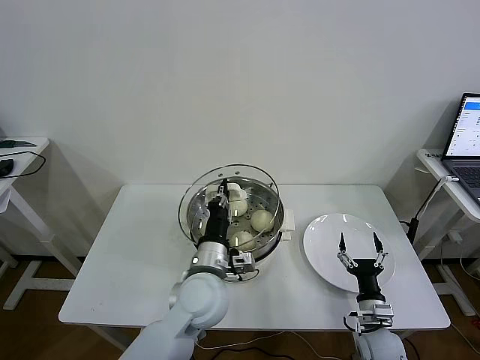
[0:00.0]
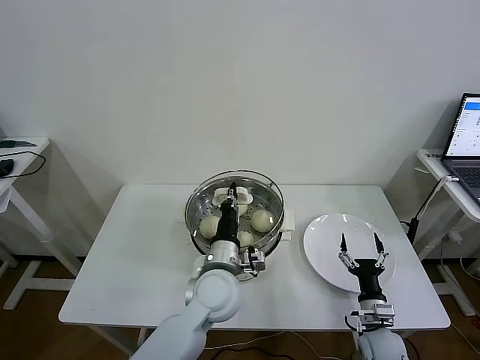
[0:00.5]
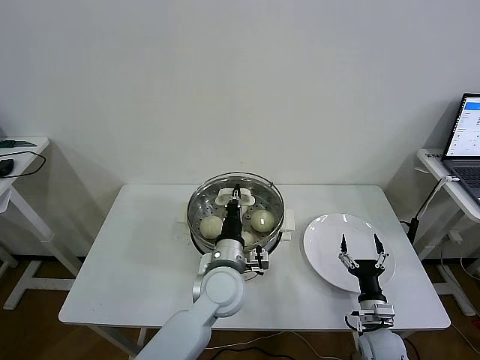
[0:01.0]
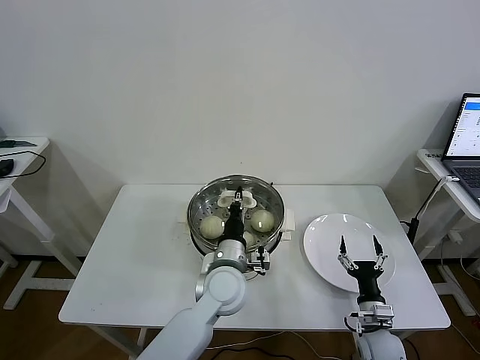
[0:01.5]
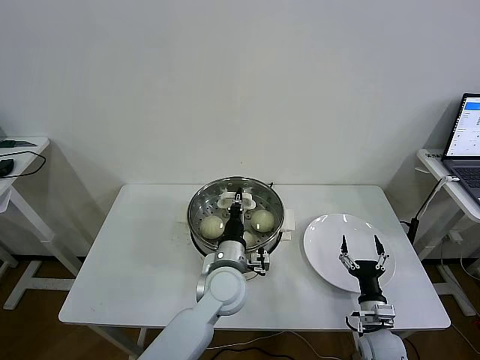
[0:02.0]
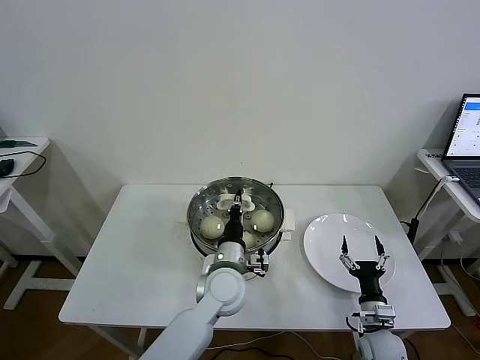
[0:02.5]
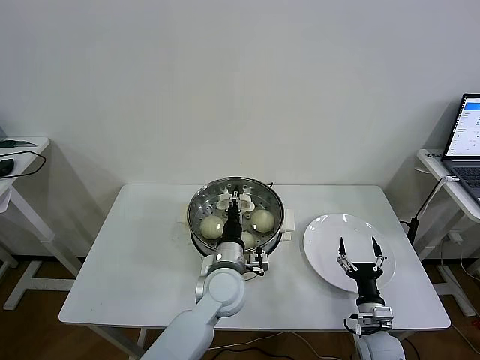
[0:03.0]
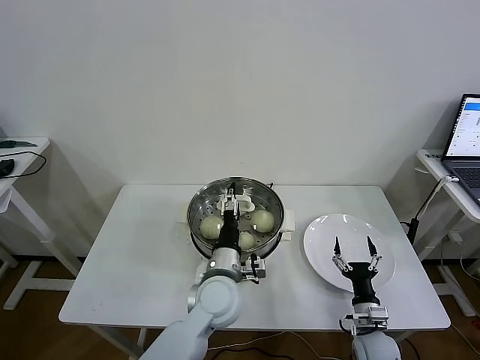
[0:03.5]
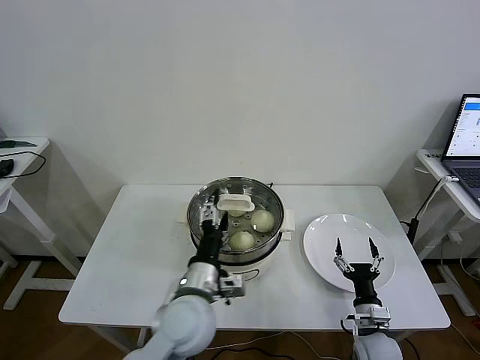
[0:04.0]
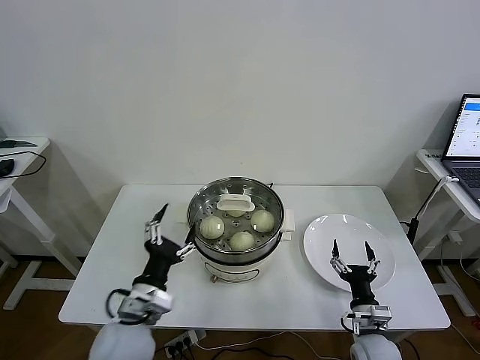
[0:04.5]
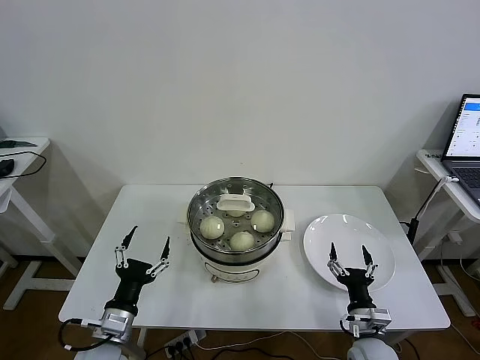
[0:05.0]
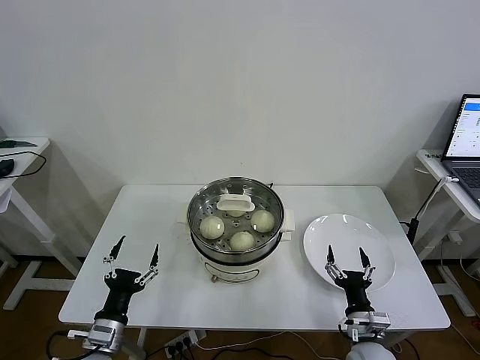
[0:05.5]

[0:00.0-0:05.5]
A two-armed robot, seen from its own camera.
Task of the whole recording: take steamed baozi put them in steamer then cover it.
Step, 0:00.0 to 0:03.0: Place the pot lid on the steamer with left gripper.
0:00.0 to 0:02.0: The left gripper goes some 5 cm downward.
0:02.0 to 0:03.5: The left gripper opens its fingers.
0:03.5 to 0:05.5: The left gripper is displaced to the left and backward by roughly 25 cm. Meanwhile the right gripper shifts by about 5 cm.

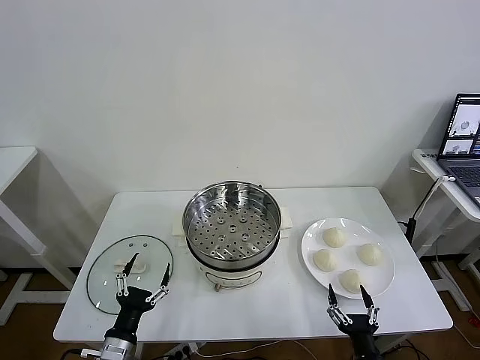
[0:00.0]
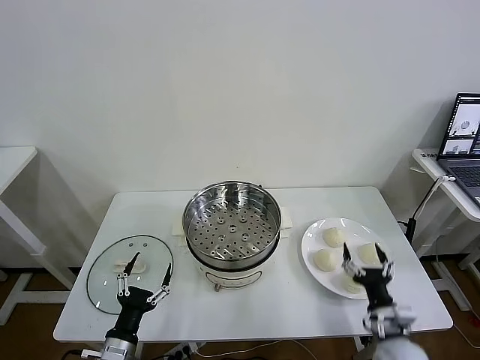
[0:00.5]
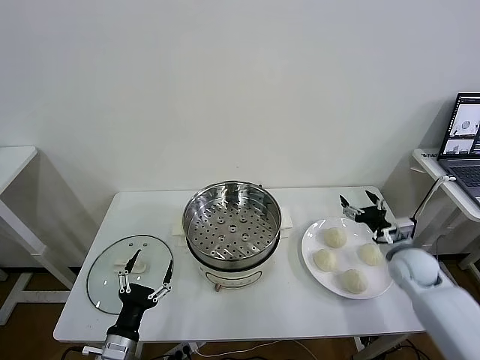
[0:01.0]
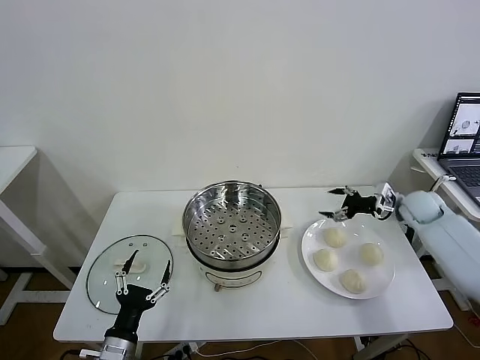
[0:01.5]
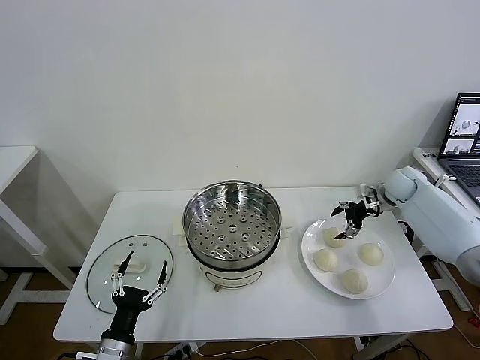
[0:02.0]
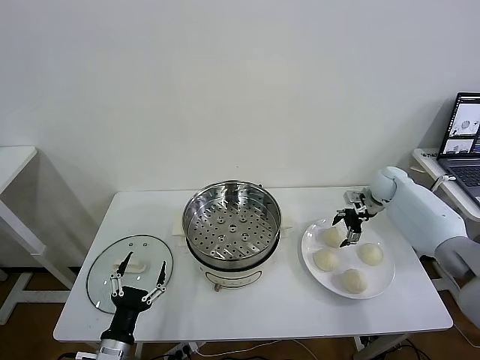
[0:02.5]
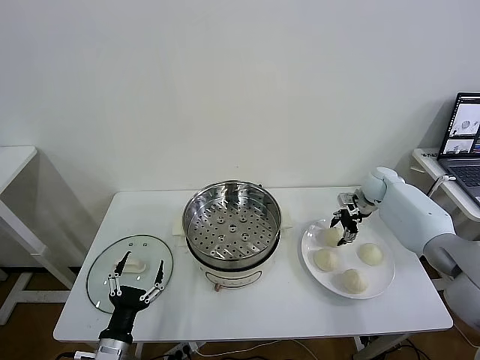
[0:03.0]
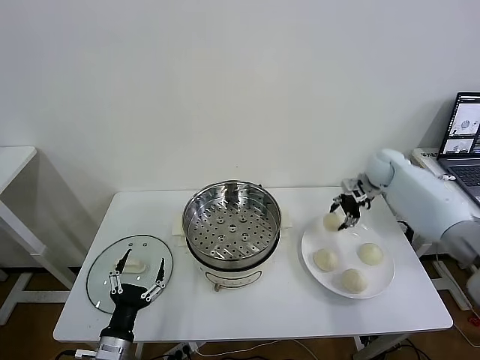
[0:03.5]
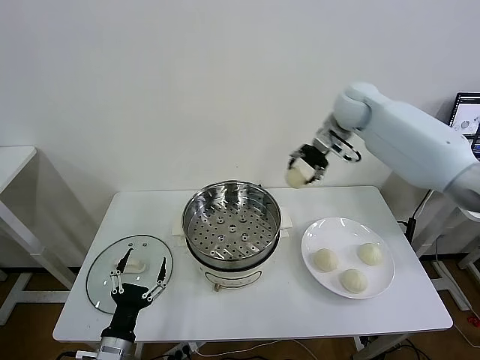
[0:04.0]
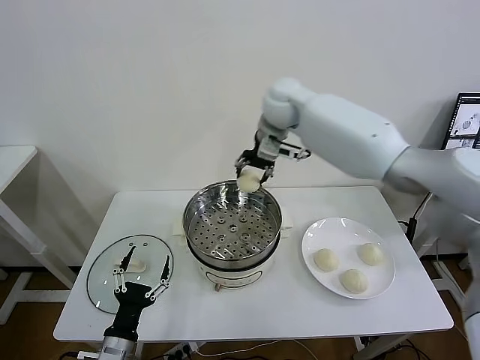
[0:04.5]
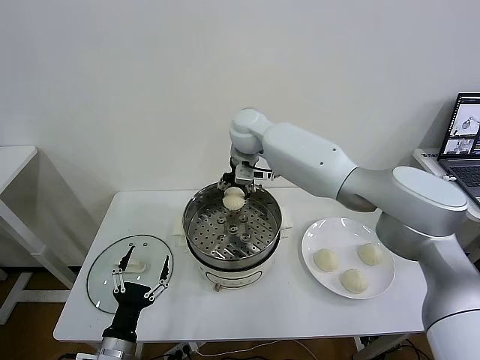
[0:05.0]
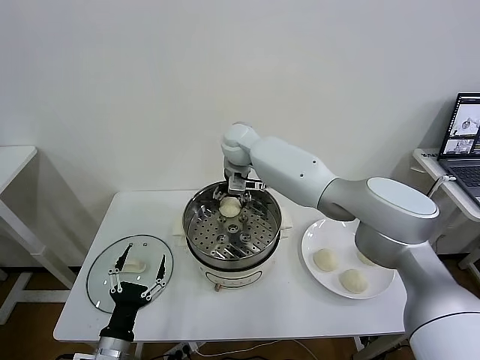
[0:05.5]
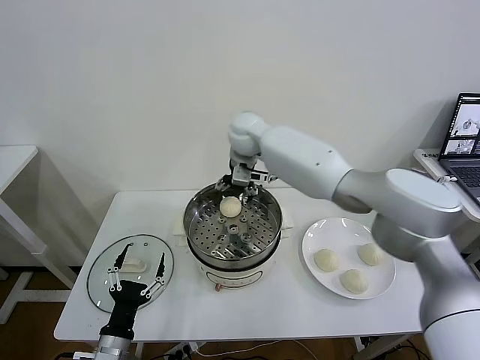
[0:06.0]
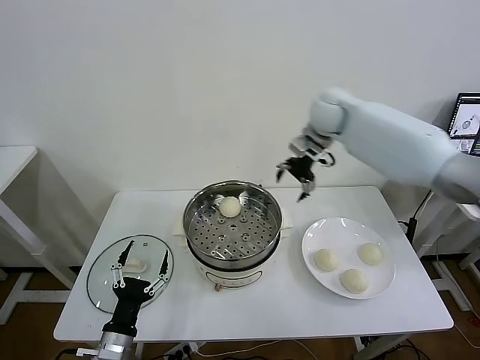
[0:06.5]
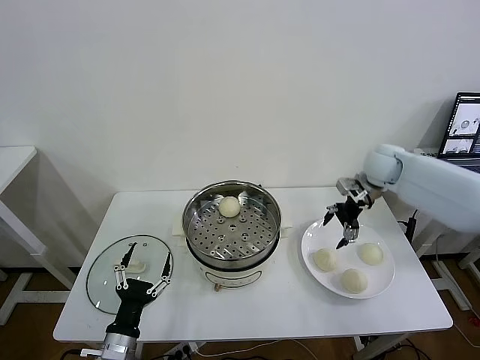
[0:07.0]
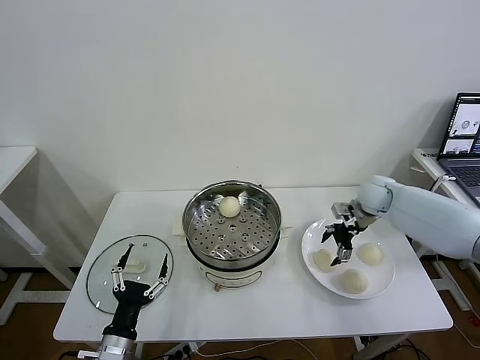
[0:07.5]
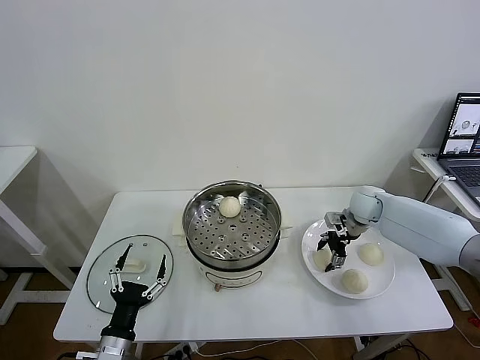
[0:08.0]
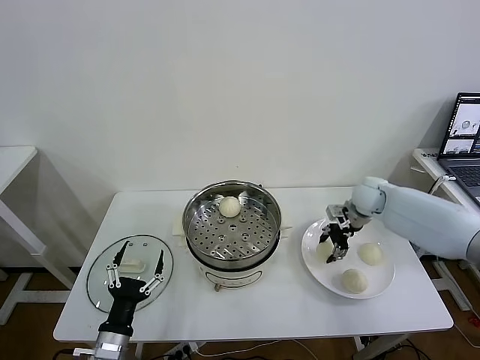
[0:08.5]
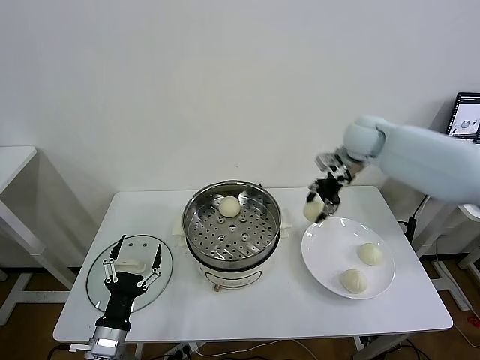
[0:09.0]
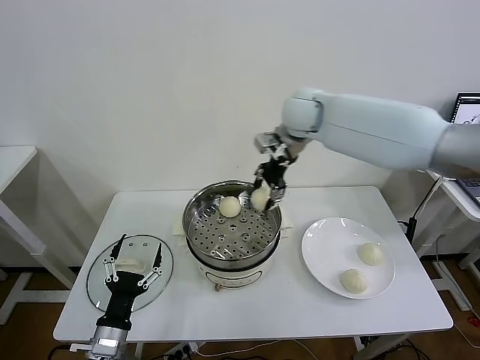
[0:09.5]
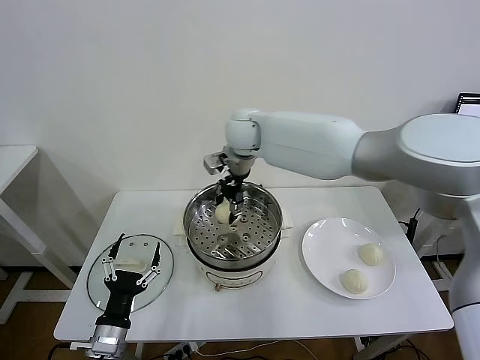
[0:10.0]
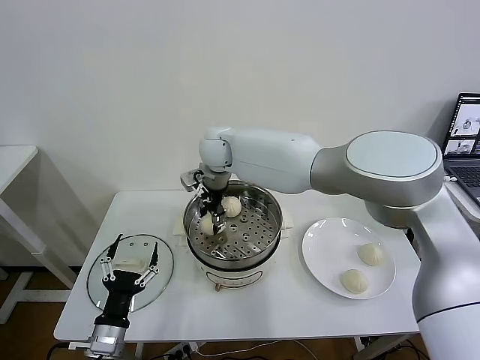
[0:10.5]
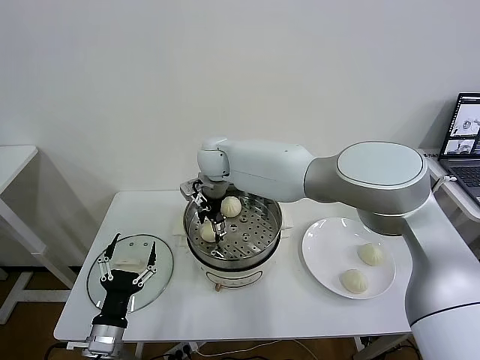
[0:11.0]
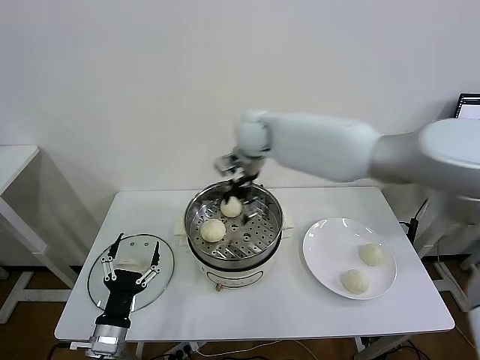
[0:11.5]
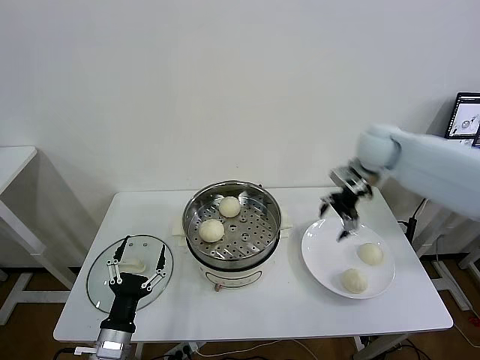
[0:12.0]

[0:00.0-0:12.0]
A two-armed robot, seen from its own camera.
Task of the whole recording: take steamed baozi put them in steamer then cover it.
Step, 0:00.0 to 0:03.0: Grasp the baozi in the plate with right gripper.
Step, 0:03.5 to 0:05.5: Place the baozi on the steamer with right gripper.
Step, 0:06.0 to 0:08.0: Grasp the baozi in the plate with right gripper.
Step, 0:08.5 to 0:11.0: Place the baozi on the steamer with right gripper.
0:02.0 to 0:04.0: The right gripper travels upward and to the left by some 30 cm, and closes up.
0:04.0 to 0:06.0: The right gripper travels to the left by some 20 cm, and opens.
0:06.0 to 0:08.0: The right gripper moves to the right and downward, approximately 35 cm, and closes its fingers.
0:08.0 to 0:10.0: The right gripper is displaced to the left and upward by about 40 cm, and closes up.
0:10.0 to 0:12.0: The right gripper shifts about 35 cm to the right, and opens up.

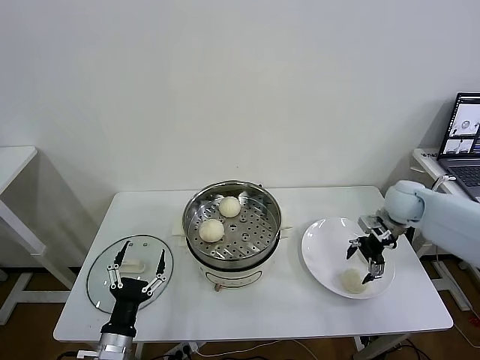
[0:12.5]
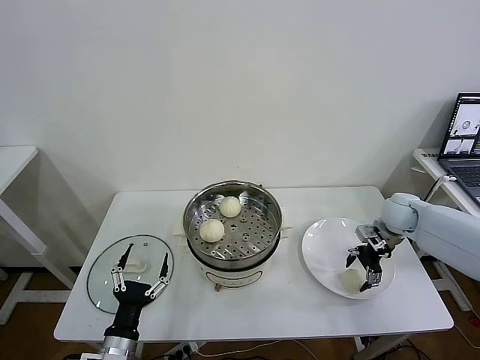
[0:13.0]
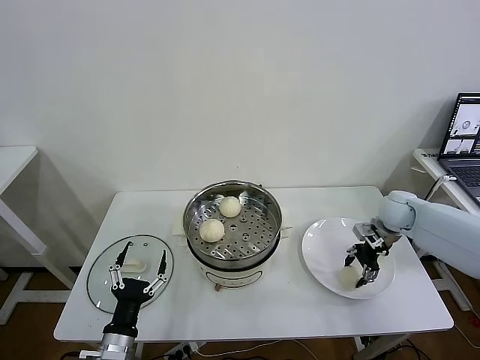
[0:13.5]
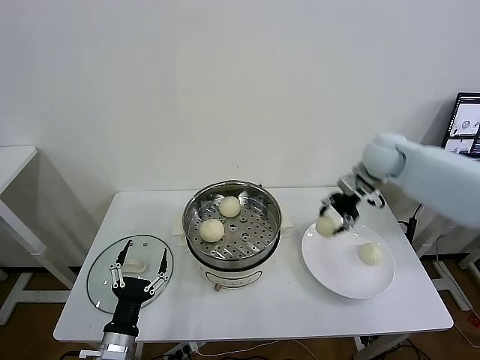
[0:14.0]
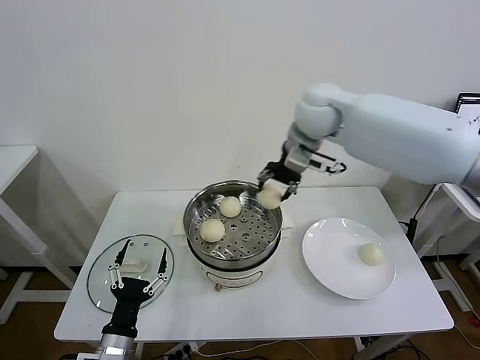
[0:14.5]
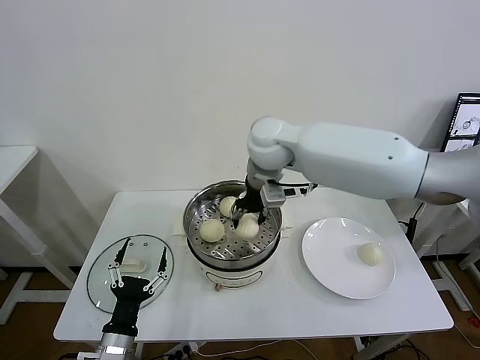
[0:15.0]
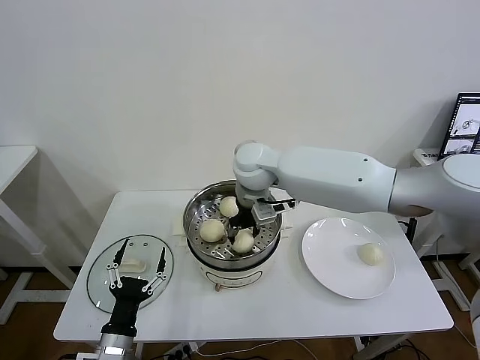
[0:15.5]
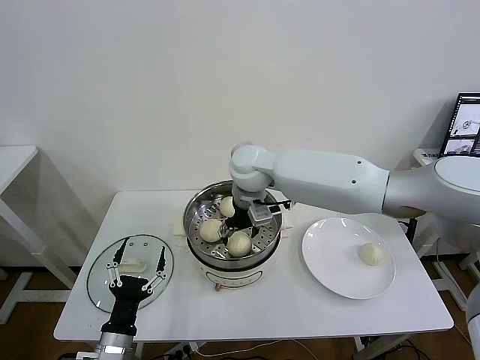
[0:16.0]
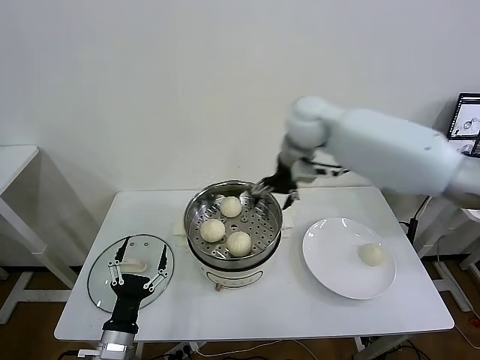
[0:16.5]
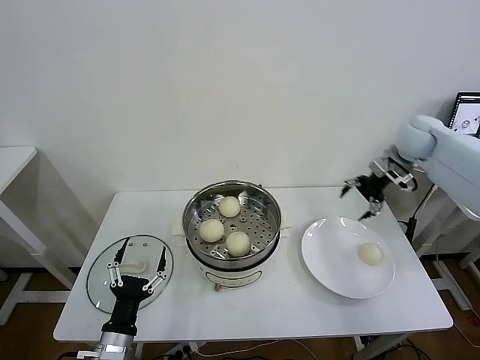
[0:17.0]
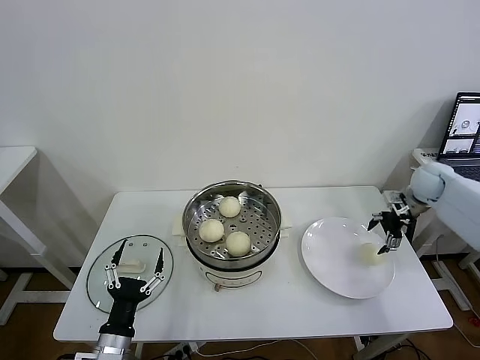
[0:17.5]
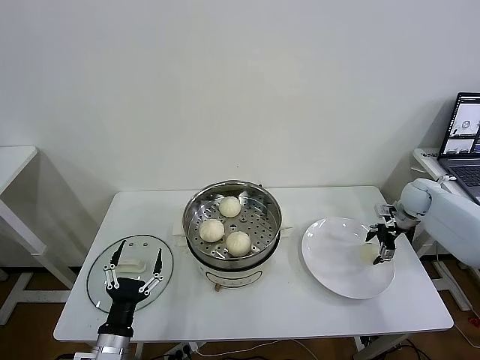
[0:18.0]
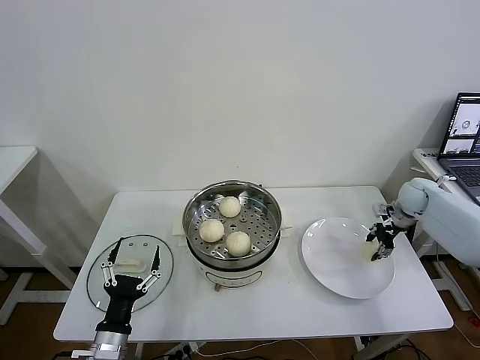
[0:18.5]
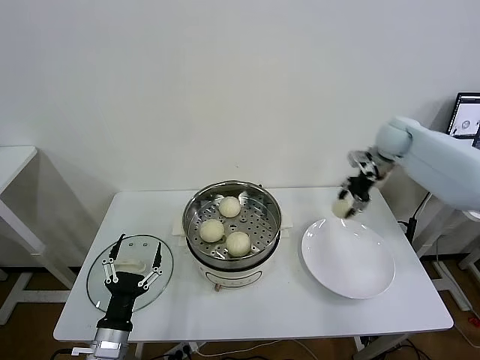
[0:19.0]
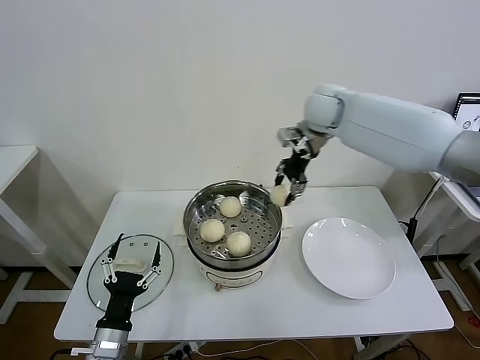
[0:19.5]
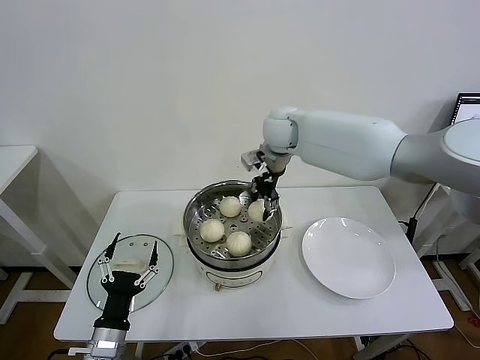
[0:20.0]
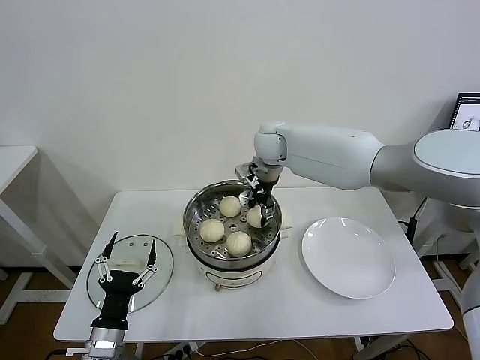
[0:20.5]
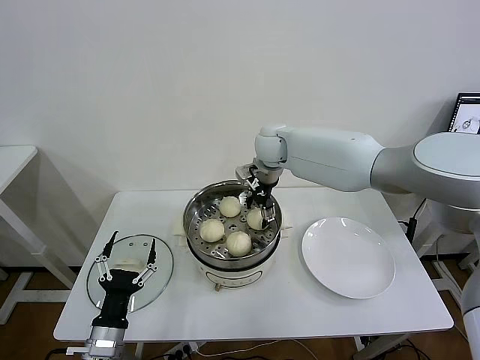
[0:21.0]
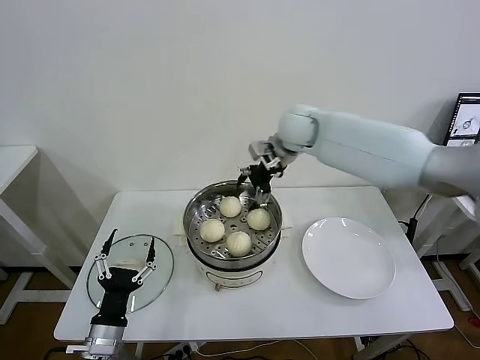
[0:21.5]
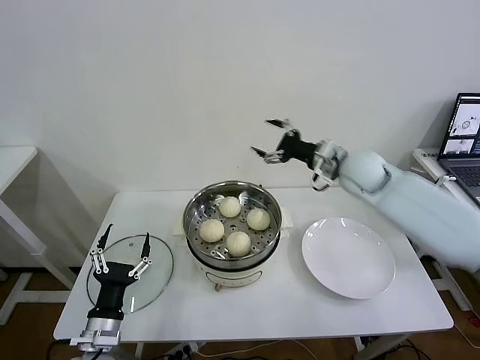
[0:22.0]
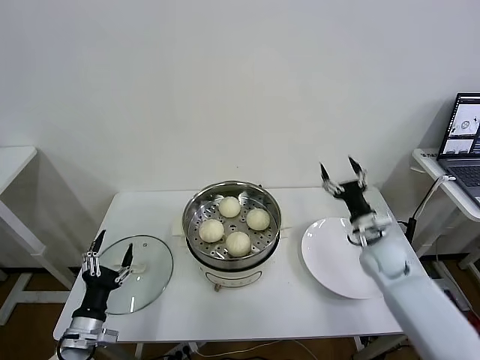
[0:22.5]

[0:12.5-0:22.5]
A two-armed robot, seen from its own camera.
Task of the whole recording: take steamed baozi put them in steamer then cover it.
Step, 0:13.5 to 0:16.0: Place the baozi on the steamer with right gripper.
Step, 0:16.5 to 0:18.0: Grasp the baozi in the plate with right gripper.
Step, 0:18.5 to 0:21.0: Place the baozi on the steamer with right gripper.
0:12.5 to 0:14.5: The right gripper travels to the left and upward by some 35 cm, and closes its fingers.
0:14.5 to 0:16.5: The right gripper moves approximately 10 cm to the left and comes back, and opens its fingers.
0:16.5 to 0:18.5: The right gripper is displaced to the right and downward by about 40 cm, and closes.
0:18.5 to 0:20.5: The right gripper moves to the left, approximately 40 cm.
0:20.5 to 0:22.5: The left gripper is displaced to the left by about 5 cm, while the right gripper shifts about 40 cm to the right, downward and backward, and opens its fingers.
